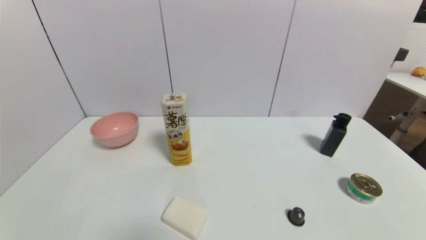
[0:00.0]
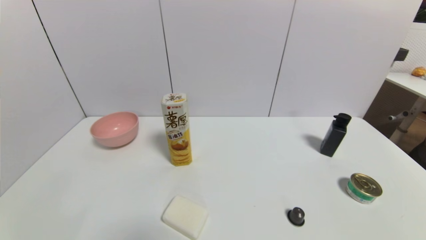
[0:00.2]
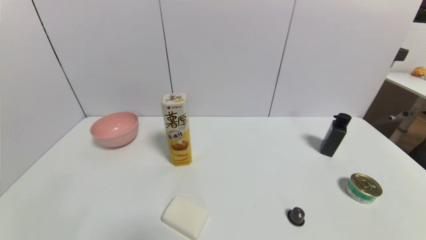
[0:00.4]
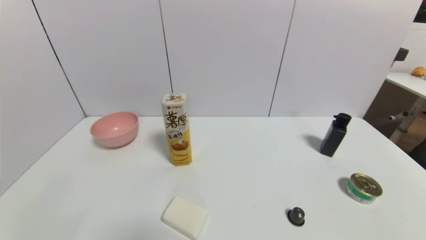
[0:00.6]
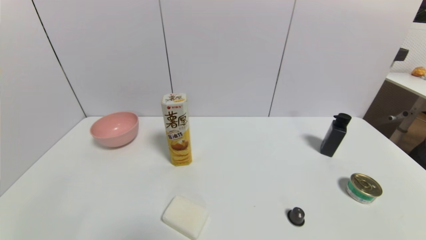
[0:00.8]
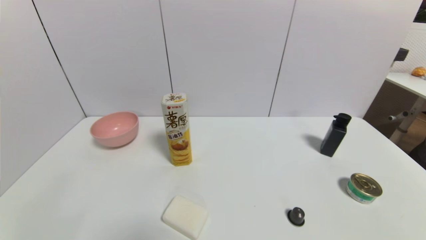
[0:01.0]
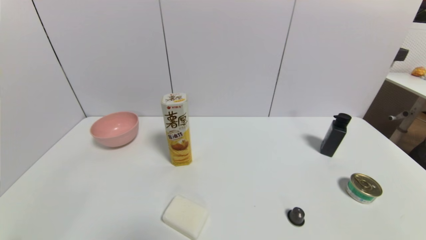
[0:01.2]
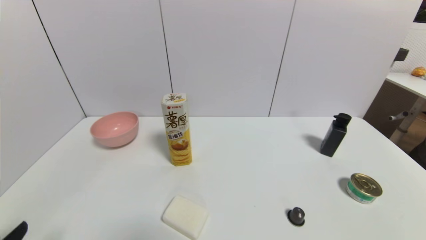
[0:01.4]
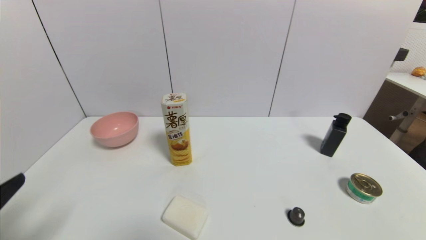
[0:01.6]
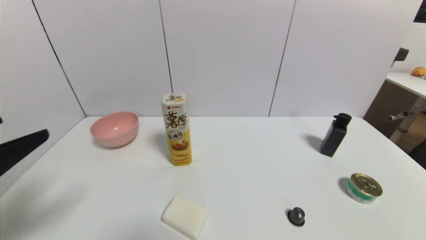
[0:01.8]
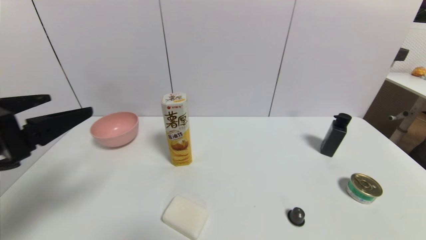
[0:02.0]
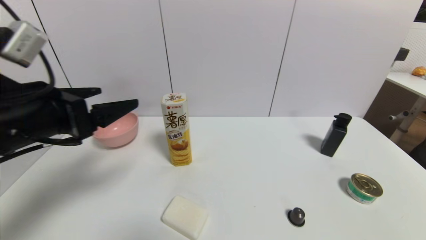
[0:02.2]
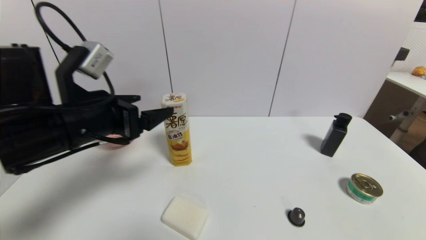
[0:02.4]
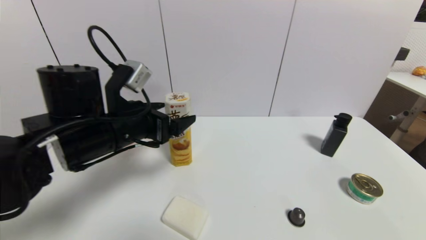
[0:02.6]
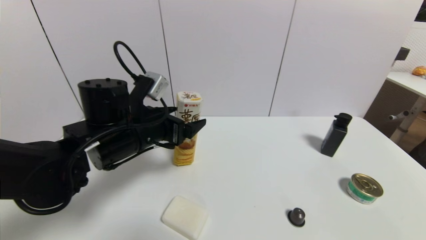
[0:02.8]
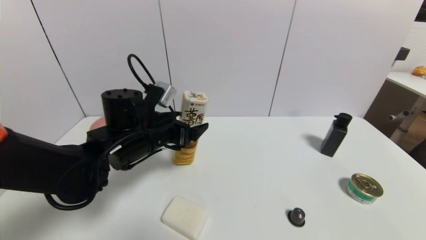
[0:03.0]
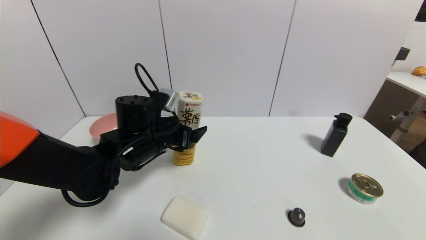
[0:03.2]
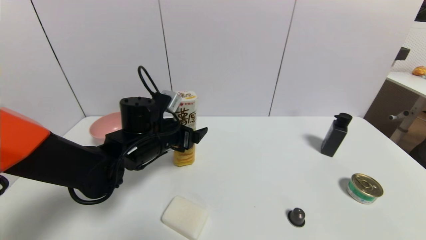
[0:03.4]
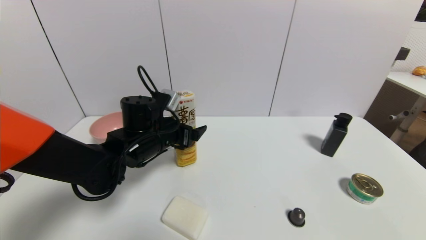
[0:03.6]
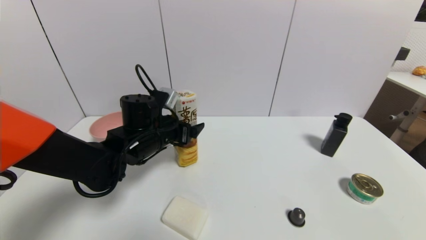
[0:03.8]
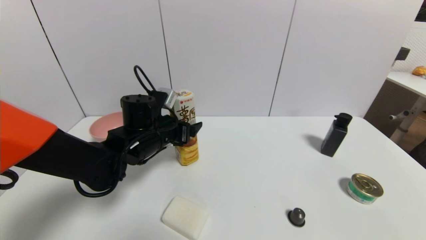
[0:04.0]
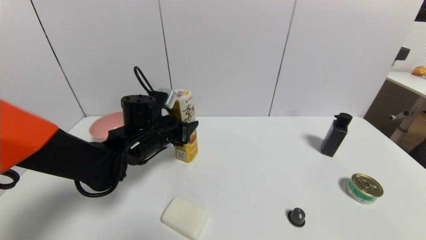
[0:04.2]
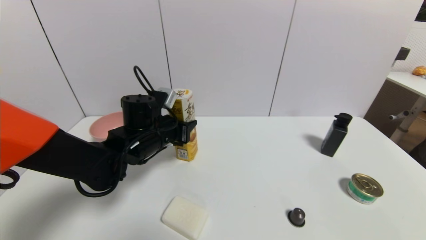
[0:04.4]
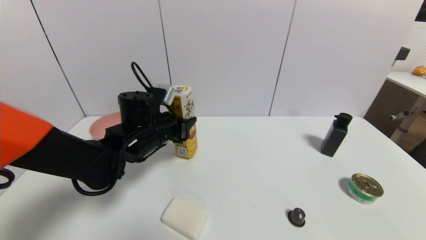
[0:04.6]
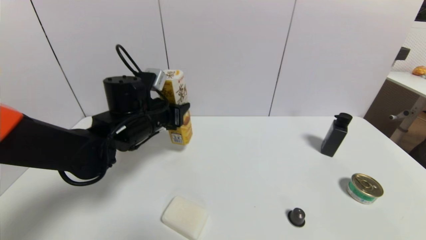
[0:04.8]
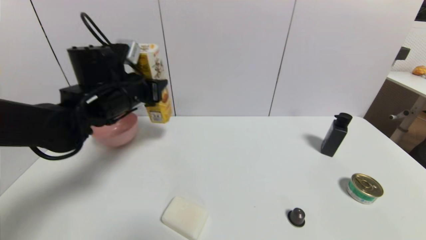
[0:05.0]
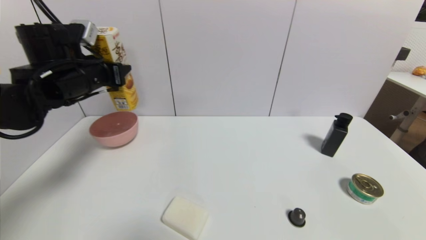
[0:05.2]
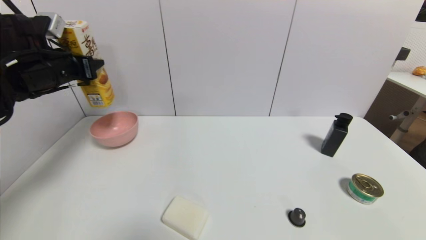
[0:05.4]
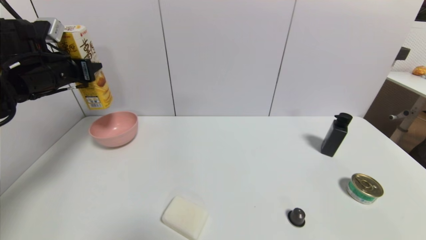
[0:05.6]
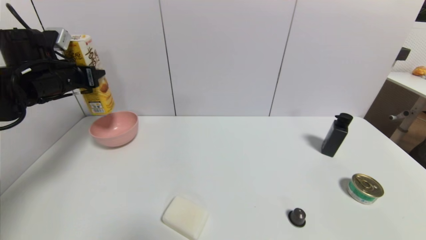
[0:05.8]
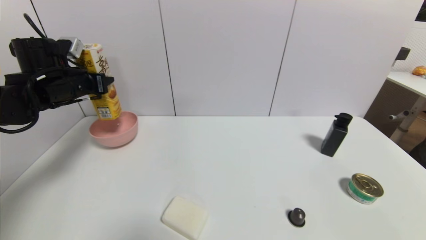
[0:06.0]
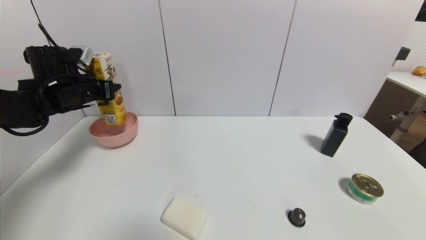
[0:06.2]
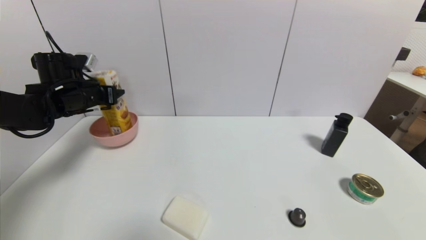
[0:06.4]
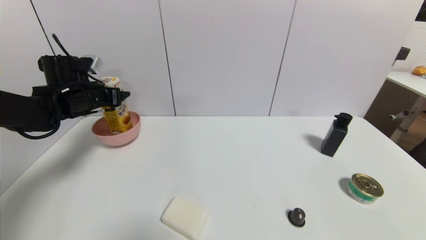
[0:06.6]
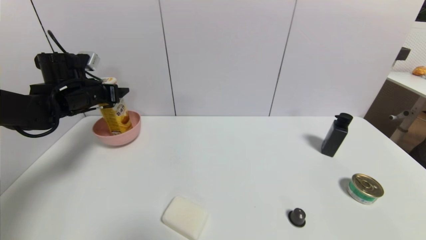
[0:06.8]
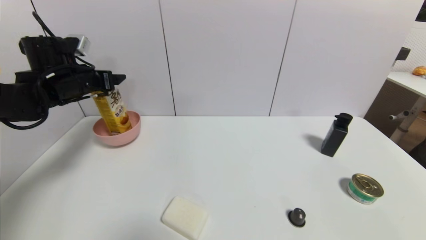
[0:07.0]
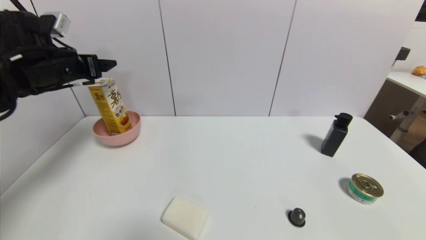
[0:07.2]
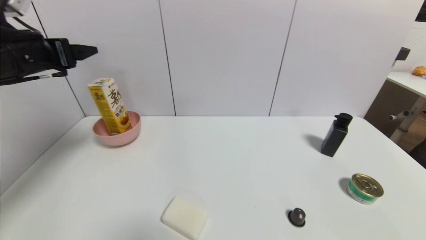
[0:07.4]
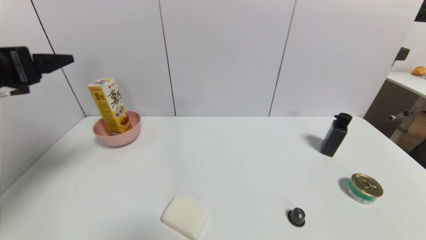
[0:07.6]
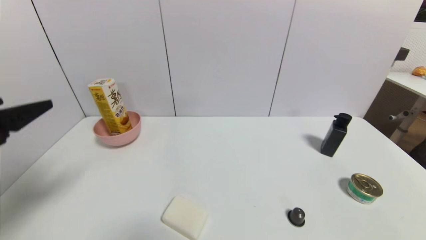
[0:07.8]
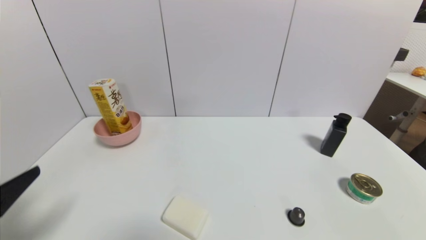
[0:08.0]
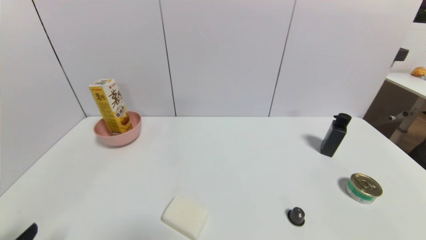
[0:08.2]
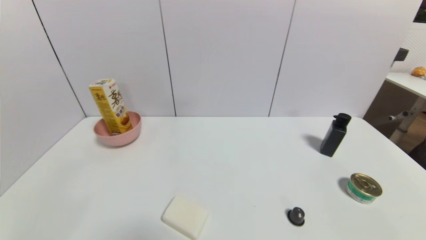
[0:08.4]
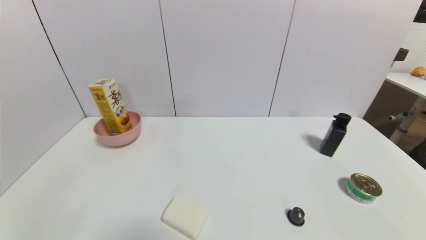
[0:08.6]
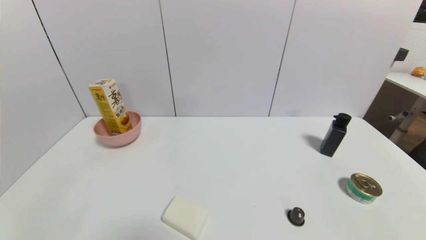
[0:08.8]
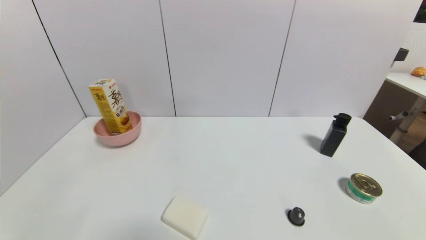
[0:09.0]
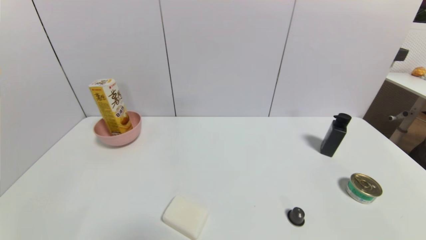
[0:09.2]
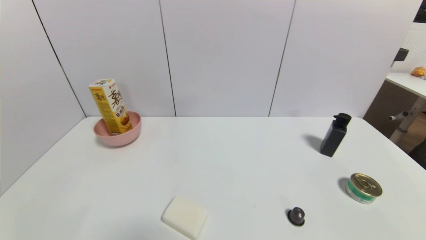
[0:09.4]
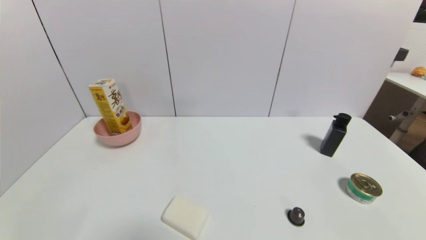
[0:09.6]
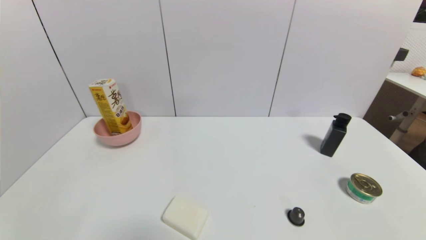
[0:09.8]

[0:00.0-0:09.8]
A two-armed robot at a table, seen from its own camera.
Task of the whole recording: use a gripper to pick the target object and place on the pink bowl.
Step, 0:00.0 to 0:04.2: Grasp the potato chips with the left gripper.
Step, 0:04.4 to 0:06.8: Place the potato chips on the pink bowl with the left gripper.
0:01.4 to 0:02.8: The left gripper is displaced forward and to the right by approximately 30 cm.
0:02.8 to 0:04.2: The left gripper is displaced forward by about 5 cm, and closes.
0:04.2 to 0:05.6: The left gripper heads to the left and upward, covering some 25 cm.
0:05.6 to 0:07.0: The left gripper opens its fingers.
0:07.0 to 0:08.4: The left gripper travels backward and downward by approximately 40 cm.
0:08.4 to 0:09.8: Neither gripper changes place.

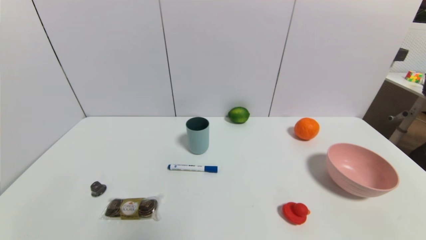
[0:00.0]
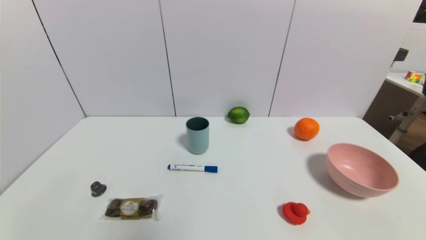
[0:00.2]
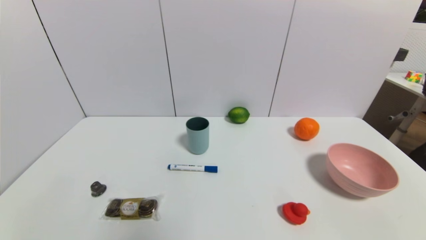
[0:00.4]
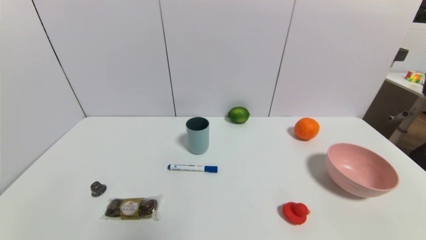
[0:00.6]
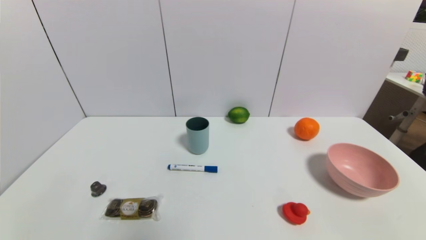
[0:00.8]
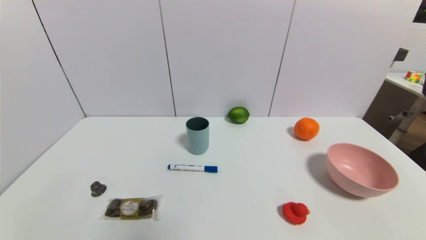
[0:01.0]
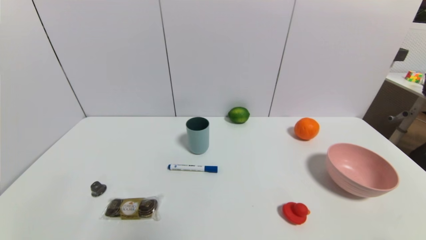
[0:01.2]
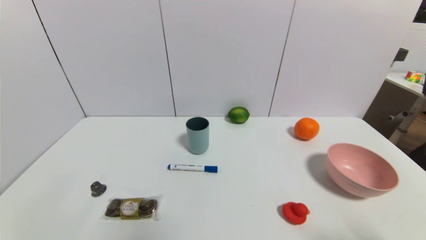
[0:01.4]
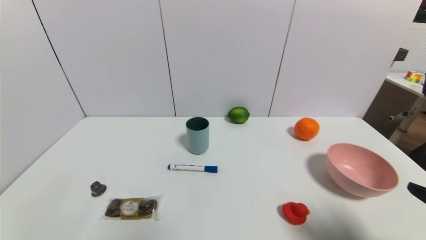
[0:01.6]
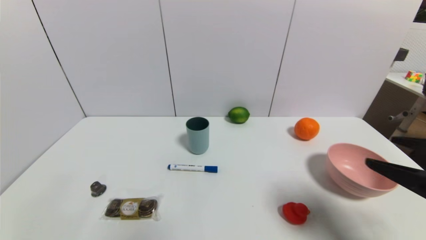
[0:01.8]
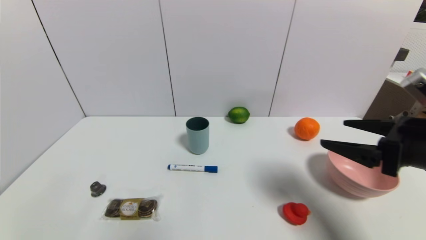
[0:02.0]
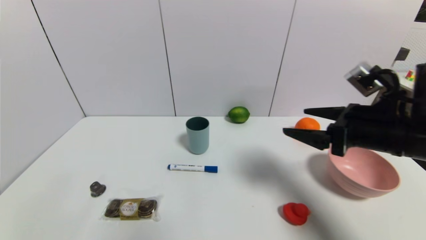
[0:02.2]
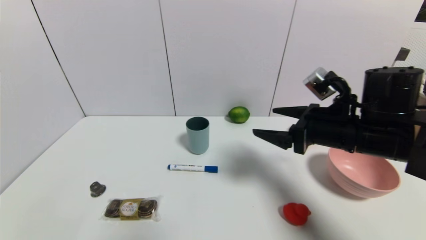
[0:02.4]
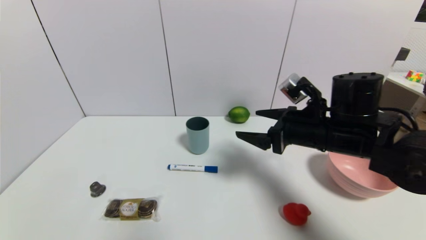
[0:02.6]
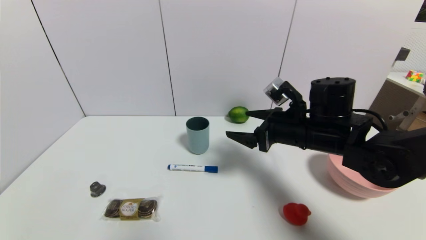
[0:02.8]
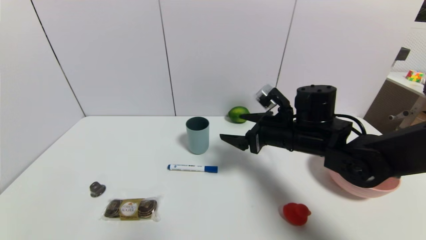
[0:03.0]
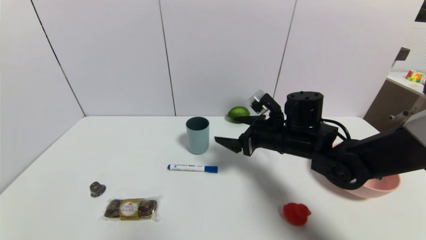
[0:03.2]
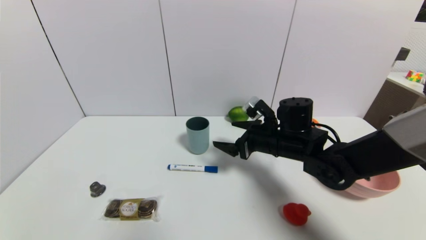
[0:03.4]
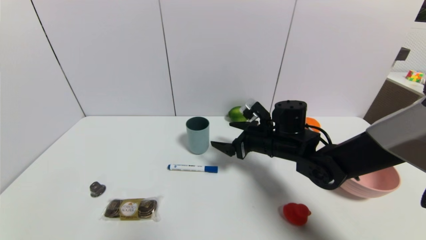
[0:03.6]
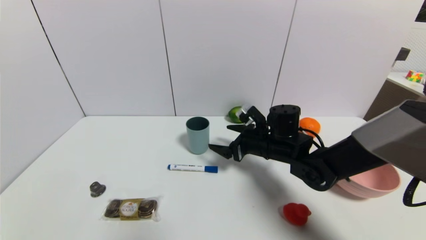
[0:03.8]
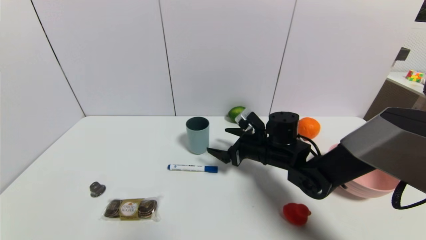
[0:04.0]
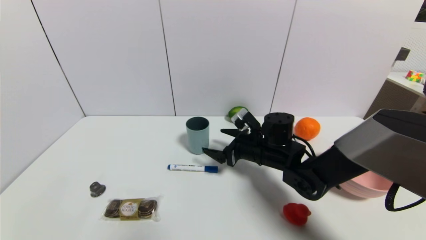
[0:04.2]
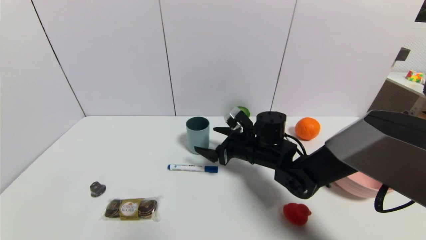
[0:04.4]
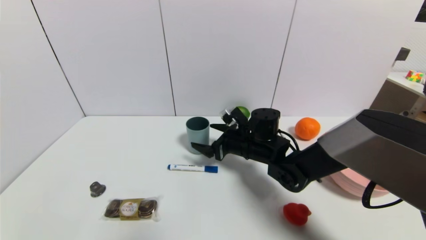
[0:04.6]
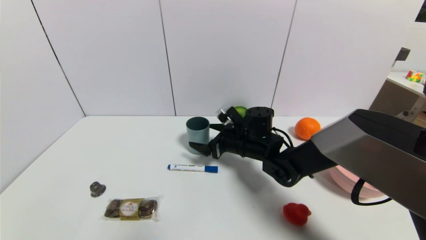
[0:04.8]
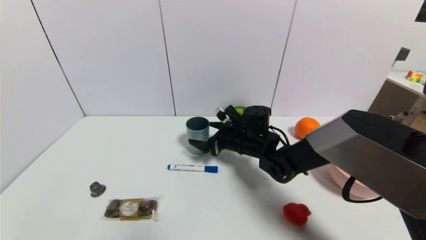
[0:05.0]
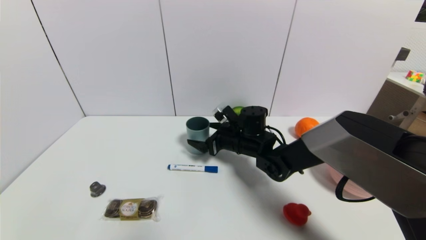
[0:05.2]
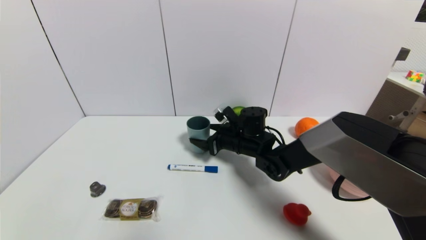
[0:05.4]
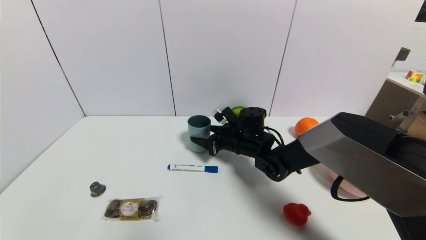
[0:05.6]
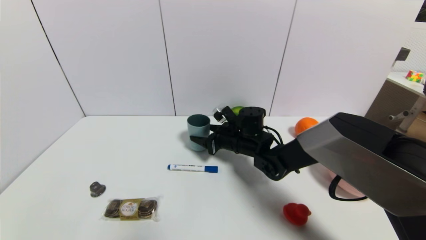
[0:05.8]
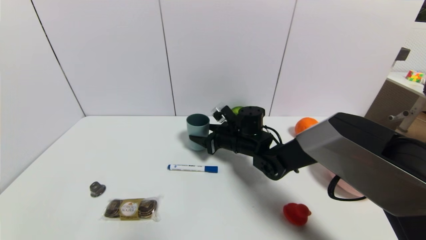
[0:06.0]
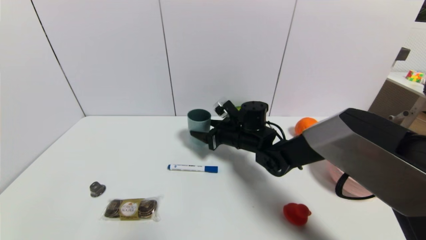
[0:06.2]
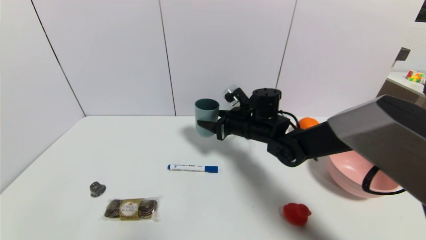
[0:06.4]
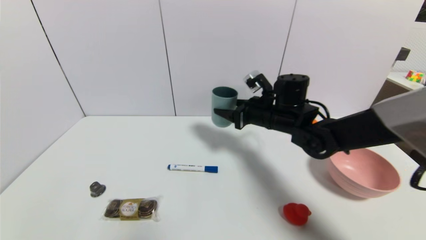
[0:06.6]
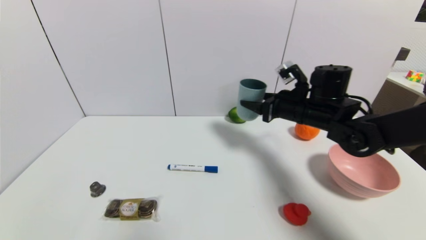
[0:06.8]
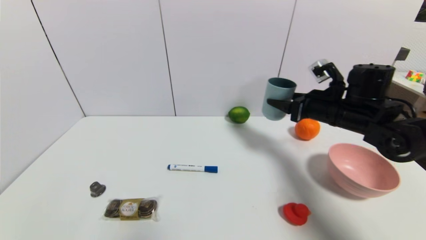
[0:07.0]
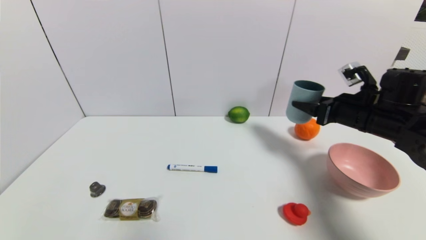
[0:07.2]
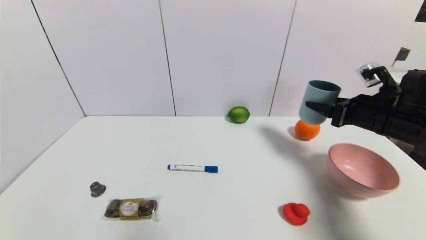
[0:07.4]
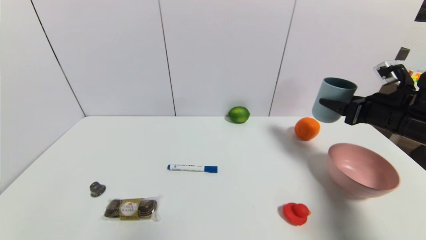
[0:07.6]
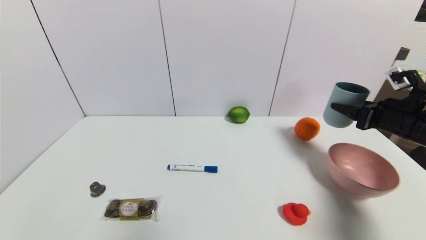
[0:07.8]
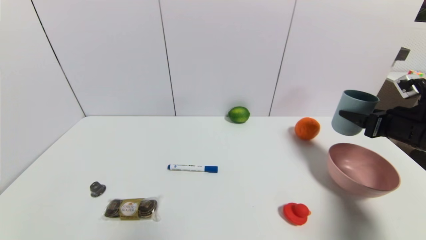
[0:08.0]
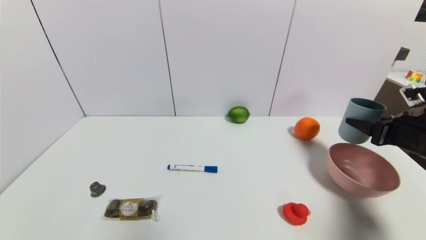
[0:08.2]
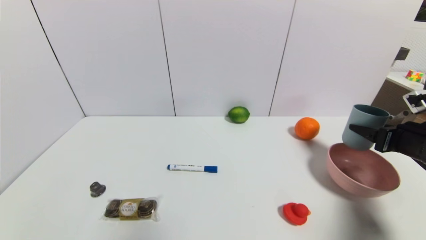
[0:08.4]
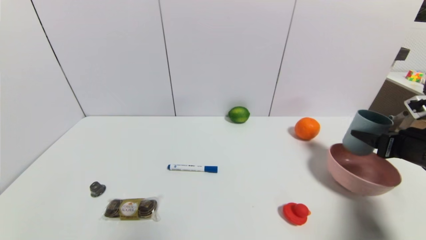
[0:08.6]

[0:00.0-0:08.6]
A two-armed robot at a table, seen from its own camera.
Task of the whole recording: use a gripper to pick the target object and place on the pink bowl.
Step, 0:00.0 to 0:05.6: Grasp the blue cup with the right gripper.
0:01.4 to 0:02.8: The right gripper goes about 30 cm forward and to the left.
0:02.8 to 0:04.4: The right gripper heads downward and to the left, covering approximately 10 cm.
0:04.4 to 0:05.8: The right gripper moves some 5 cm, and closes up.
0:05.8 to 0:07.2: The right gripper shifts approximately 25 cm to the right and upward.
0:07.2 to 0:08.6: The right gripper moves to the right and backward, about 10 cm.
